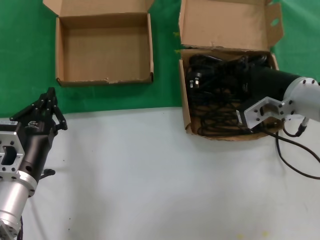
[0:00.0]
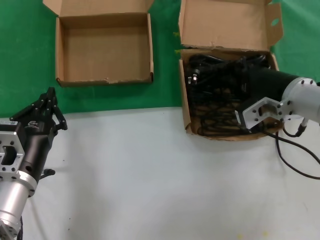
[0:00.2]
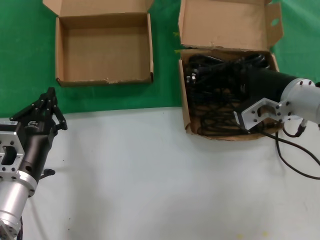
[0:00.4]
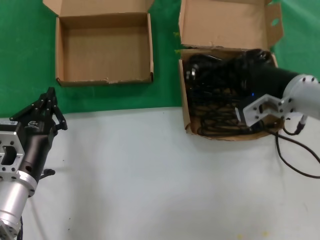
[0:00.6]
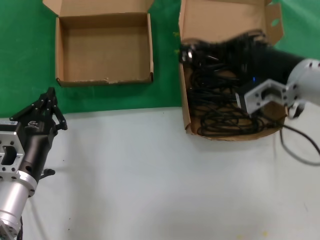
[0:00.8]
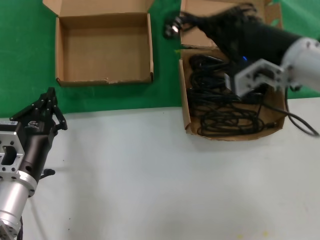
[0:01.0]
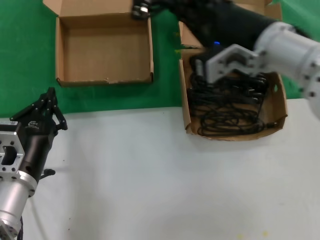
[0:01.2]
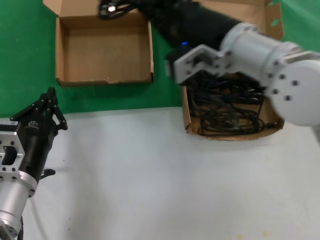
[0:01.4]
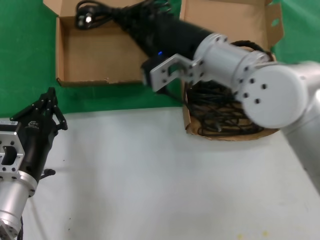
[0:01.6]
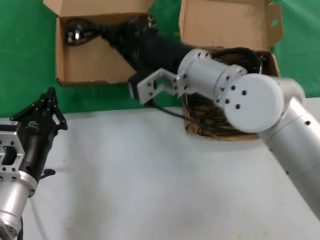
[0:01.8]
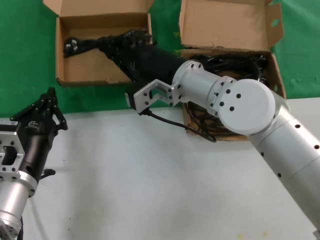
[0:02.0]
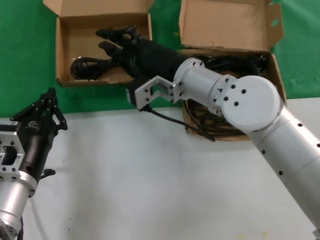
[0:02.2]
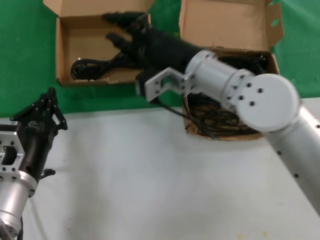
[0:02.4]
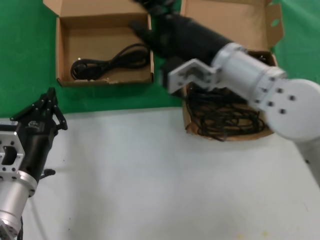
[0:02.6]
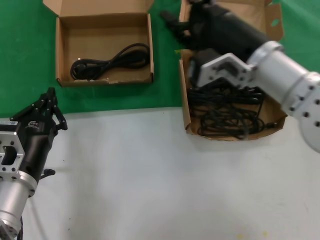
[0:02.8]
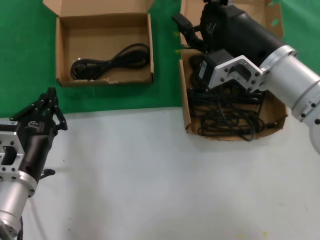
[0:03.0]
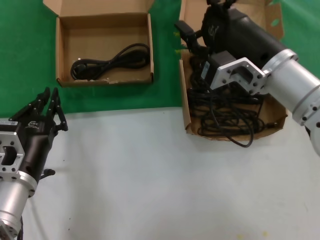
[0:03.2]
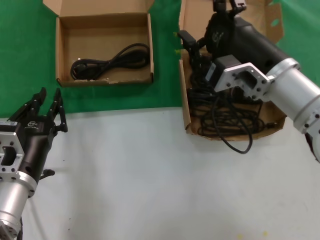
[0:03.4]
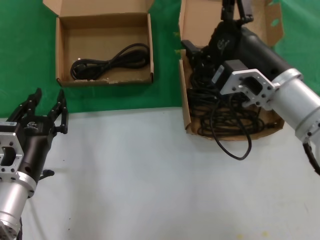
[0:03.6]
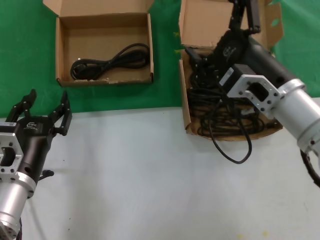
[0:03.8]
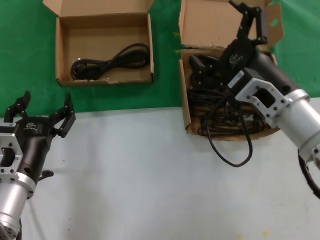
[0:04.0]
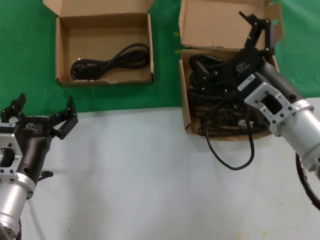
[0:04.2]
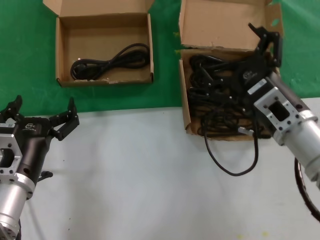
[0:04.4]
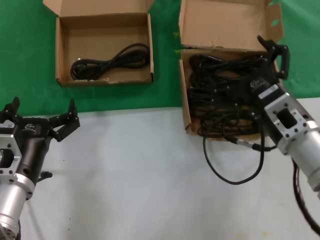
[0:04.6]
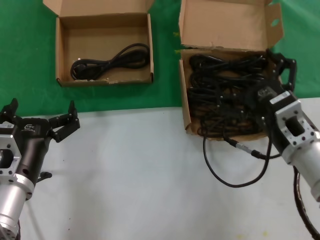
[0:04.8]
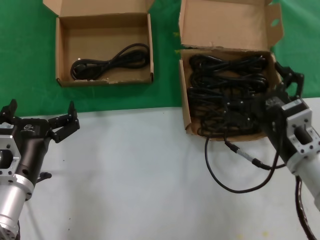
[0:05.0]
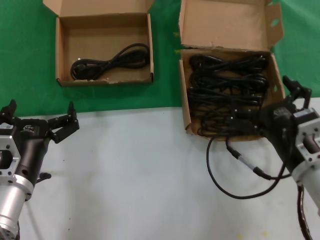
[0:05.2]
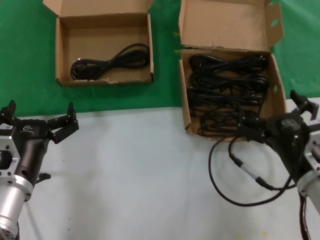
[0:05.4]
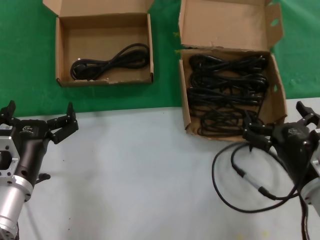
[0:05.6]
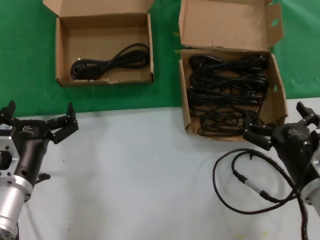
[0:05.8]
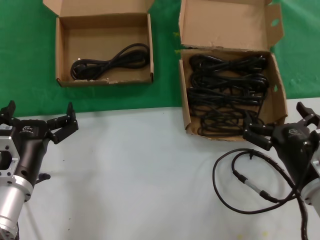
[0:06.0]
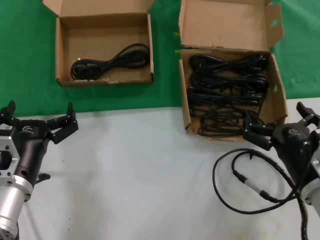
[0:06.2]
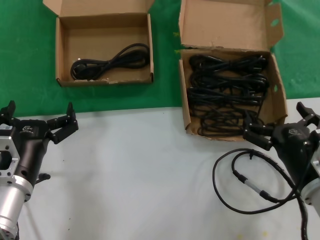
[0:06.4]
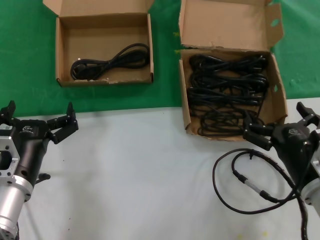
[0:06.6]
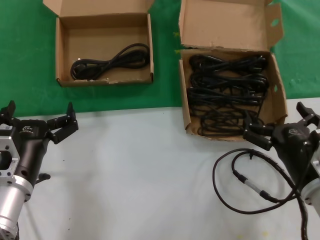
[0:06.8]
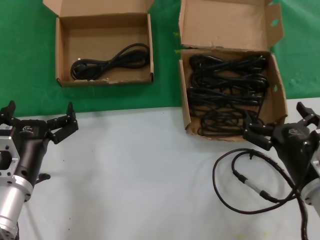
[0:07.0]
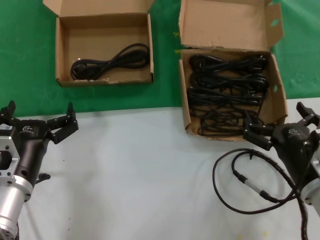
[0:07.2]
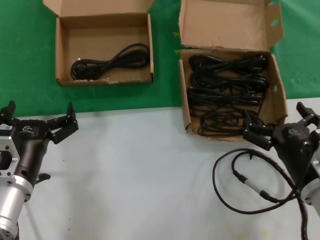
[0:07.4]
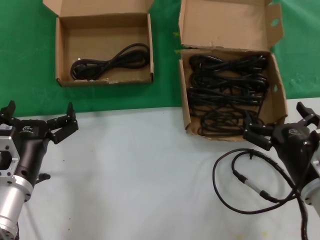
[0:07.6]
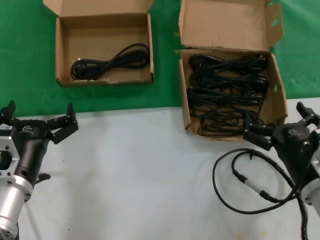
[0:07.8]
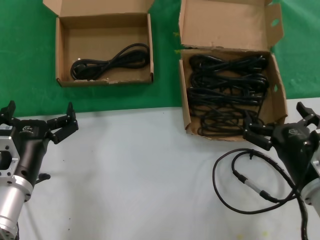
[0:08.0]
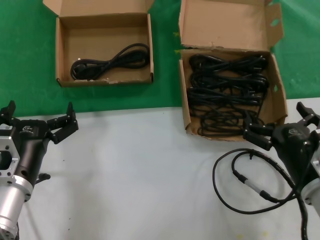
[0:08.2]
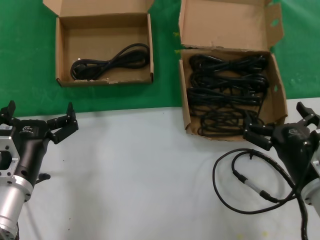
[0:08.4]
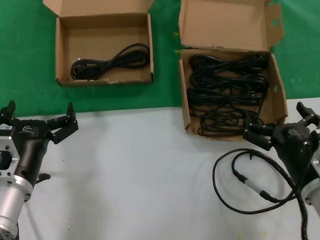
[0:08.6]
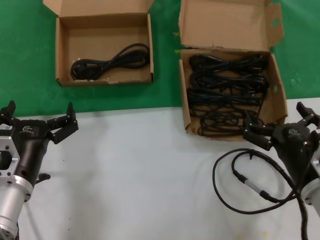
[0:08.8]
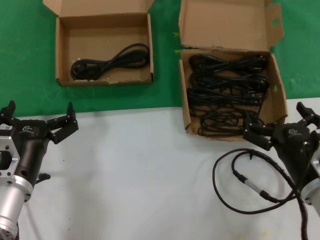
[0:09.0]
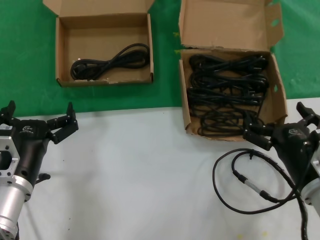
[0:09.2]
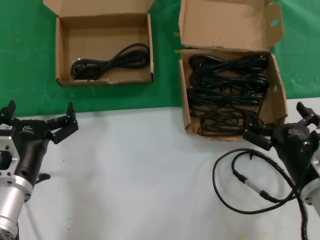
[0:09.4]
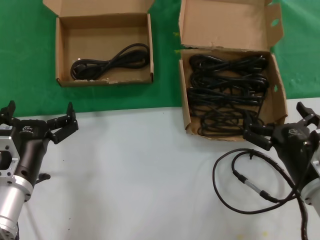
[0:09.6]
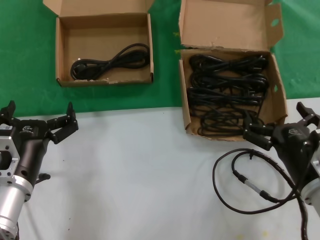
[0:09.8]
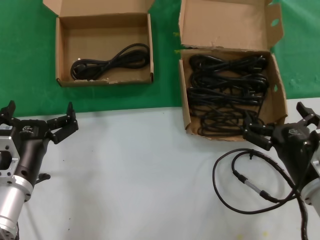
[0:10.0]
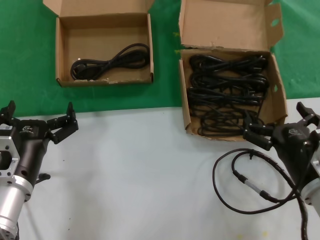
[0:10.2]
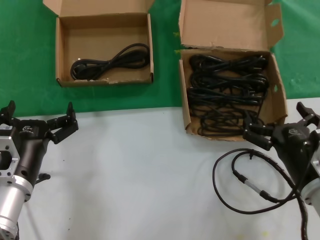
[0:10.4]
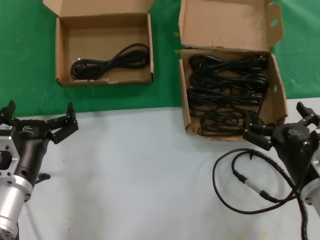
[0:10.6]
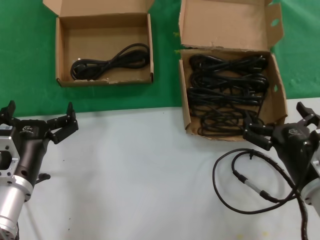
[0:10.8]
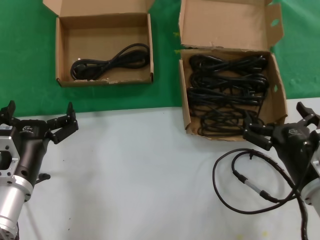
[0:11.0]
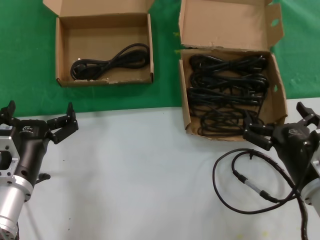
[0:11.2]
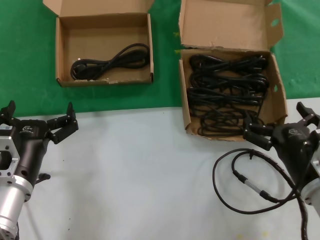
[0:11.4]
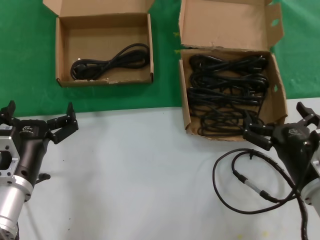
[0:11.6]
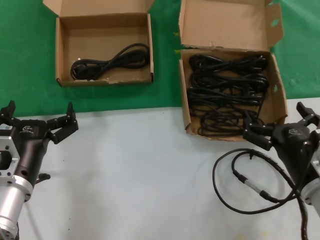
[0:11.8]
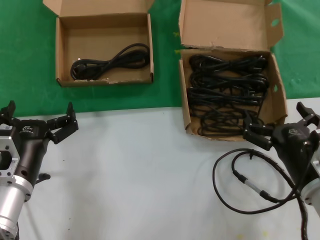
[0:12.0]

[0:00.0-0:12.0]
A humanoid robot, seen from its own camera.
Task of the whole recording: take the parts from the box containing them and put them into an empty box.
Step, 0:00.4 to 0:02.0: Place the data cable in the another box.
0:00.0 to 0:01.6: The right hand goes some 15 cm to the left and upward.
0:01.6 to 0:03.0: The right hand shifts approximately 10 cm to the right.
0:03.0 to 0:04.4: The right hand is displaced downward by approximately 10 cm.
0:04.4 to 0:06.0: The right hand goes approximately 10 cm downward and backward.
0:06.0 to 0:12.0: Both hands stay about where they are.

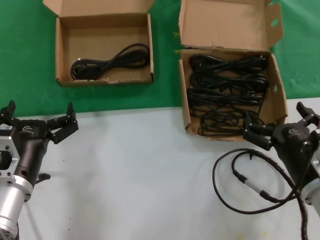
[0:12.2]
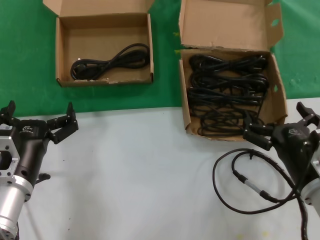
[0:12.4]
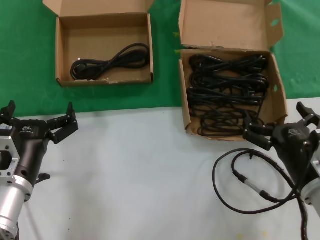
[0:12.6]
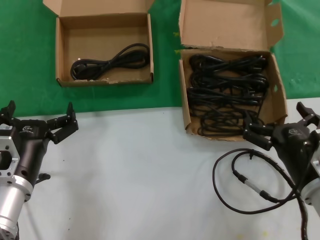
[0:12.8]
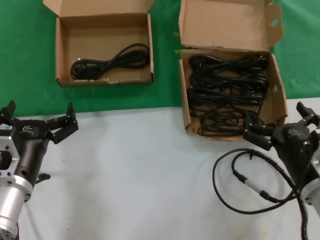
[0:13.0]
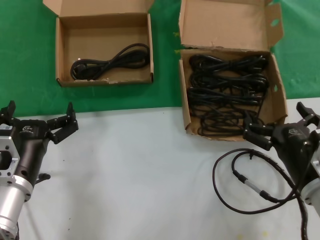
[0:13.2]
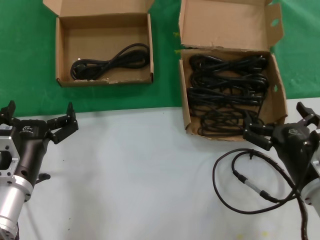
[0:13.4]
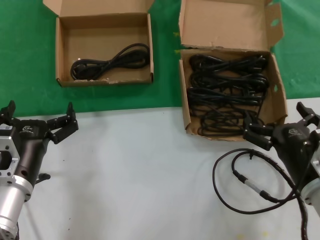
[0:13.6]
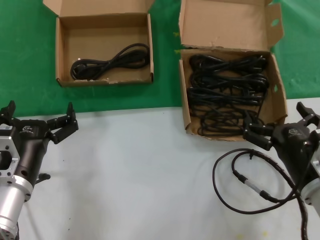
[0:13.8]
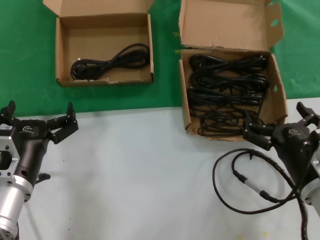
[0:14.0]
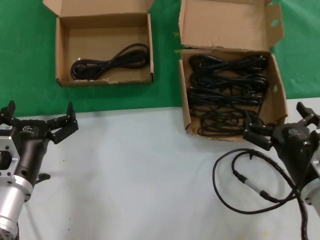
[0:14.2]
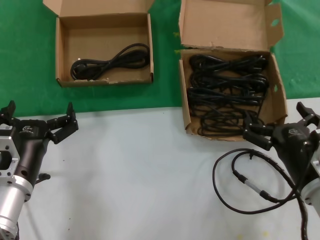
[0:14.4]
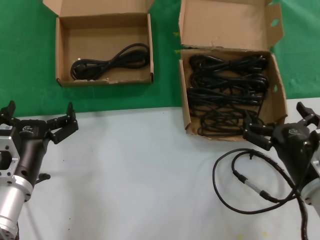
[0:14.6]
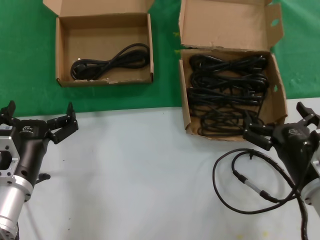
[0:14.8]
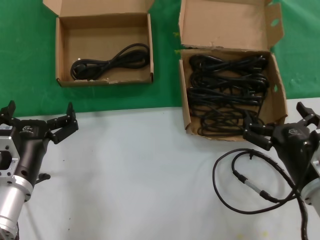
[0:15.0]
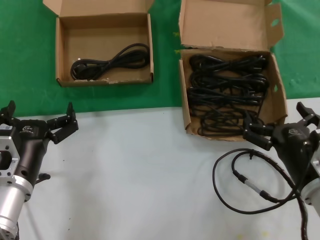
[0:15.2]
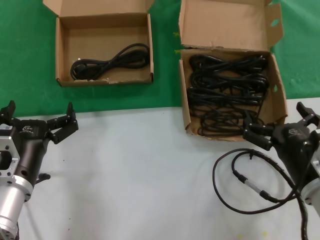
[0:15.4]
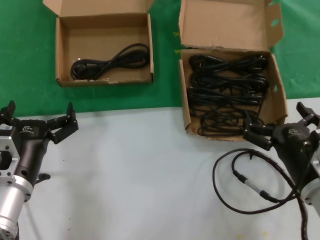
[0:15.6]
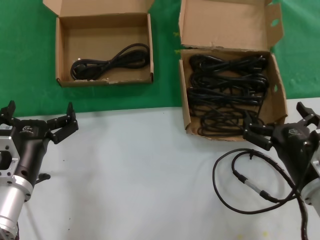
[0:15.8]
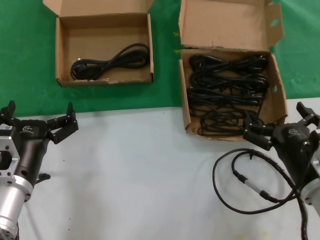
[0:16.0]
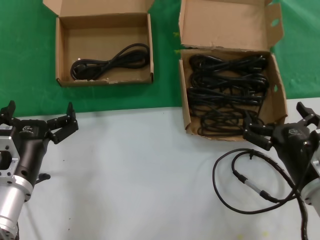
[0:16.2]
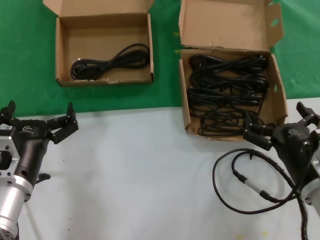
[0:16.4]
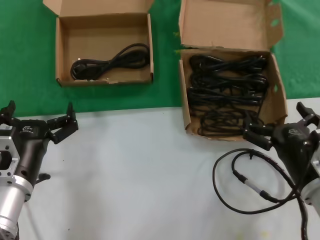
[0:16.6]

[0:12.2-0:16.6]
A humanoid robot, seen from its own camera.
Task of the whole recording: take the parts from the box containing them and put them into an empty box.
0:12.2 to 0:16.6: Both hands stay put.

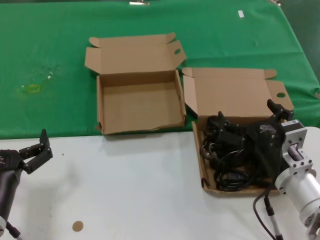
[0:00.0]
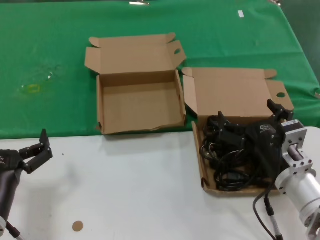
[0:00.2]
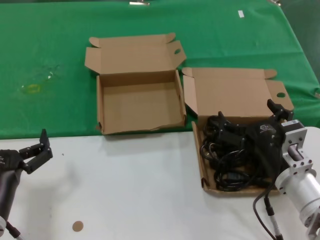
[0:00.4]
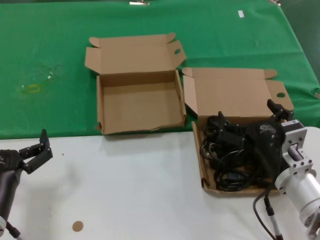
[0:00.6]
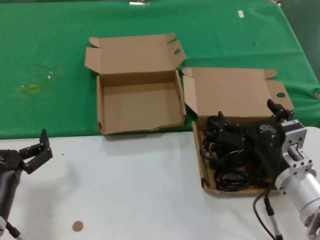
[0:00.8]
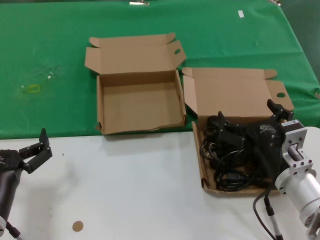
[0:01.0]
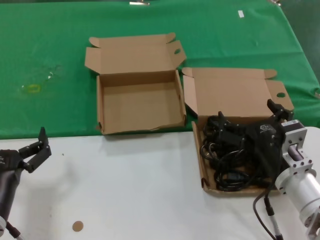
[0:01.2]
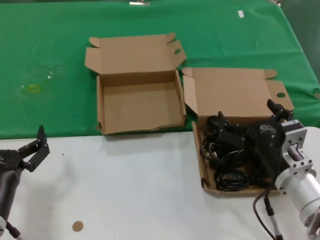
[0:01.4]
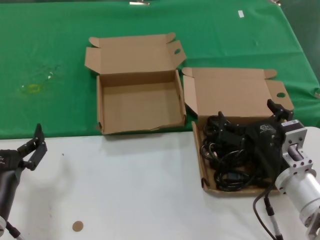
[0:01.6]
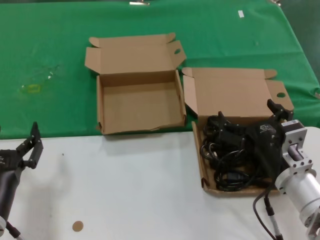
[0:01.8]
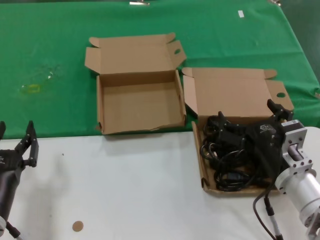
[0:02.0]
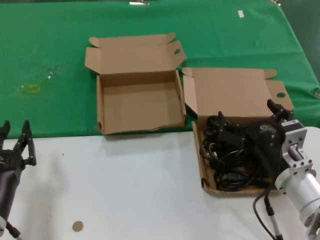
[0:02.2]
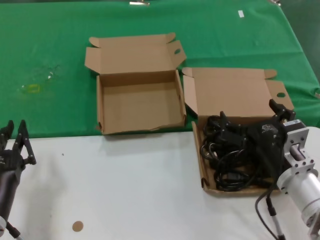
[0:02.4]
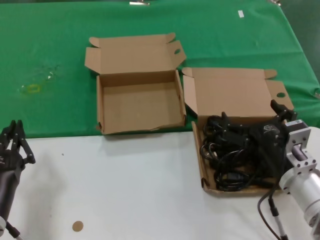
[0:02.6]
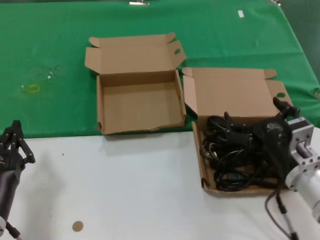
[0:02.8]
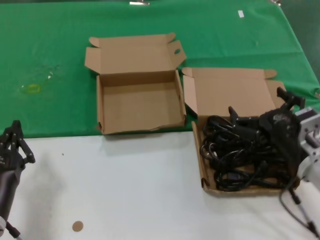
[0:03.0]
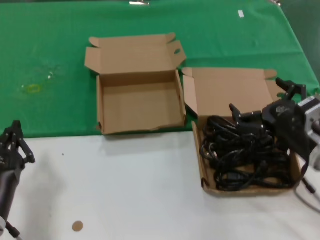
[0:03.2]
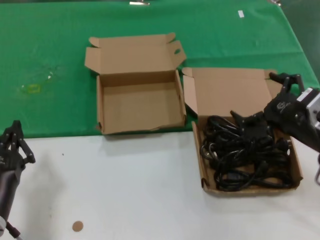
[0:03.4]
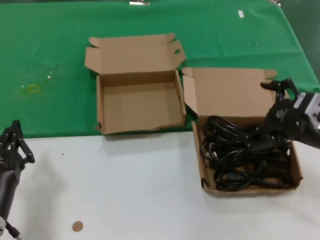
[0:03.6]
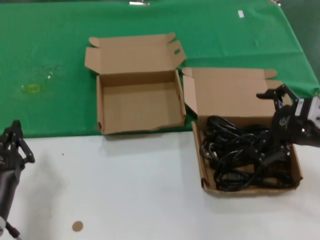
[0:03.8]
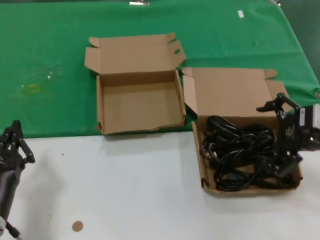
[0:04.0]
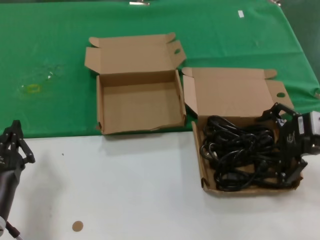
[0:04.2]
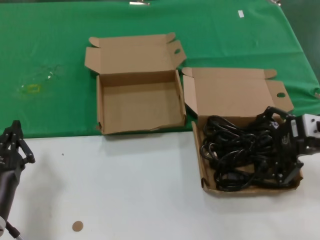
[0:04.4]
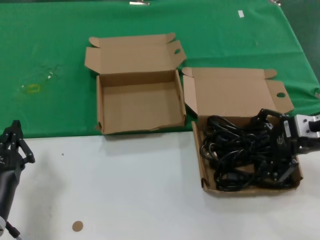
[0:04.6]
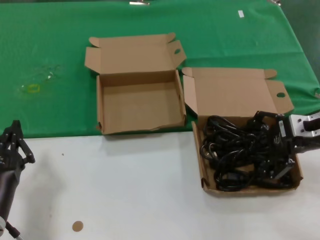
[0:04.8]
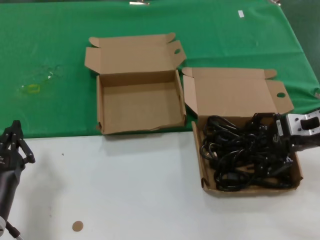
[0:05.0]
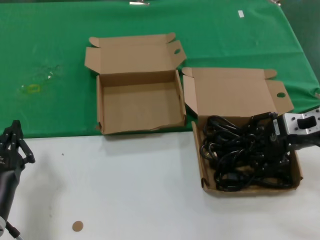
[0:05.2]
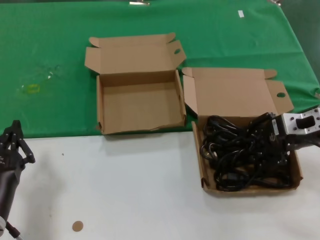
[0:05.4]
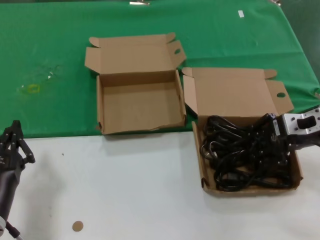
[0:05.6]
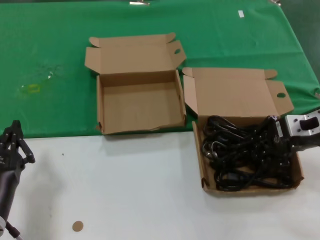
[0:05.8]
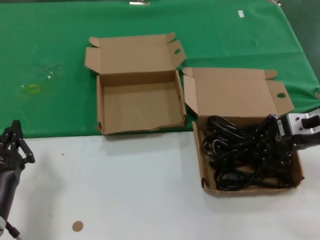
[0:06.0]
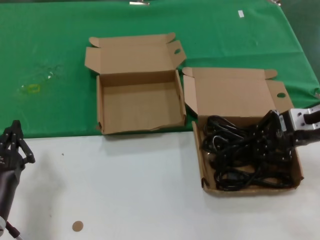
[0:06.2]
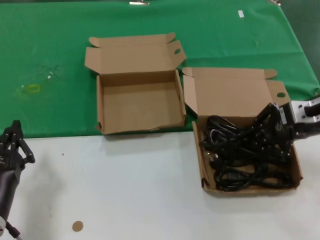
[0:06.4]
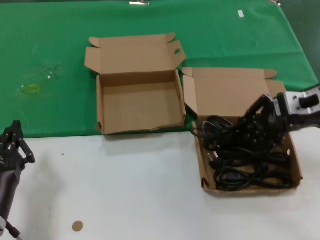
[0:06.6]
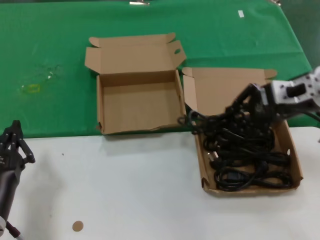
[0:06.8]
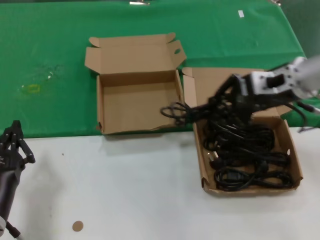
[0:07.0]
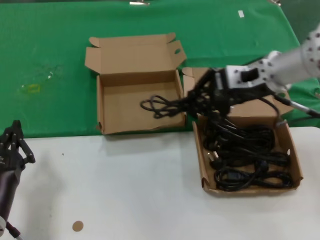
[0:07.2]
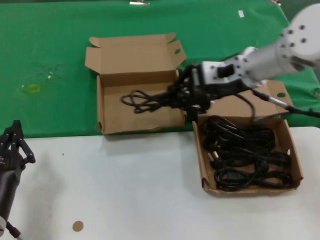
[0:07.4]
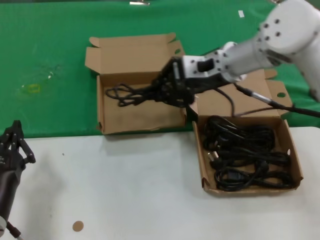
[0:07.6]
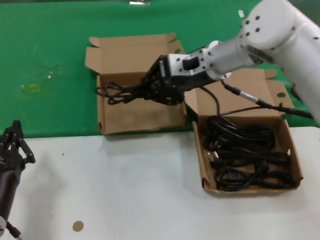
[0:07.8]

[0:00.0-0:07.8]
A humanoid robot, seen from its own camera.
Task of the whole recording: take the parts from the box containing them and put them into an empty box.
Step, 0:00.0 to 0:05.6: Grasp the data cable.
0:00.0 to 0:01.6: Both hands stay put.
0:01.6 to 0:03.2: The right hand travels to the right by about 5 cm.
0:03.2 to 0:04.6: The right hand goes about 15 cm upward, forward and to the right.
0:04.6 to 0:06.2: The hands stay close to where they were, moving slightly.
0:06.2 to 0:07.8: The right hand is displaced to the left and forward by approximately 25 cm.
